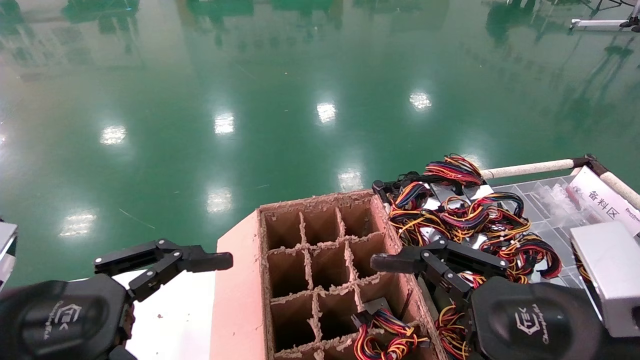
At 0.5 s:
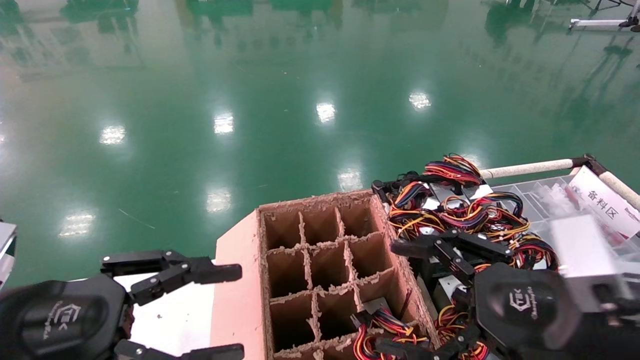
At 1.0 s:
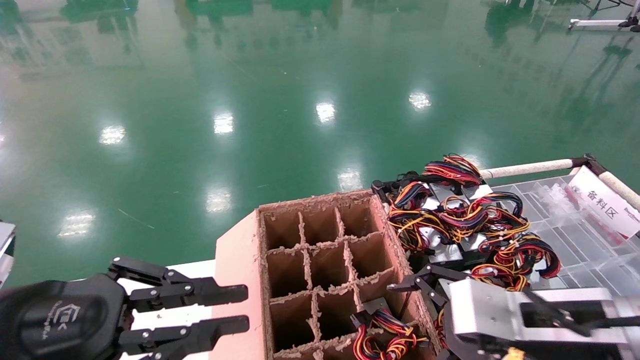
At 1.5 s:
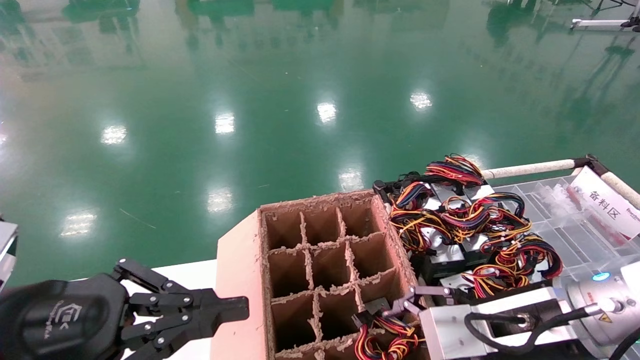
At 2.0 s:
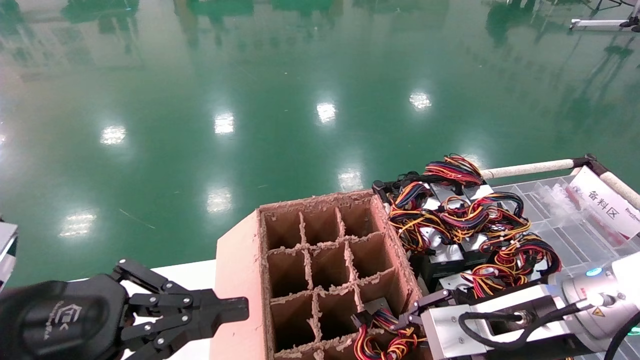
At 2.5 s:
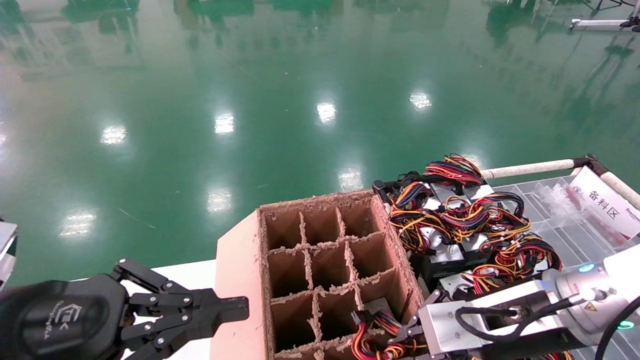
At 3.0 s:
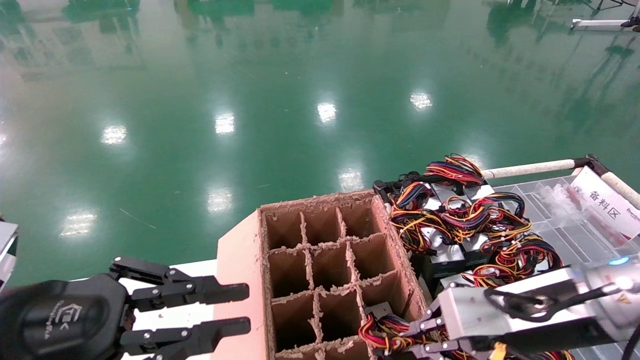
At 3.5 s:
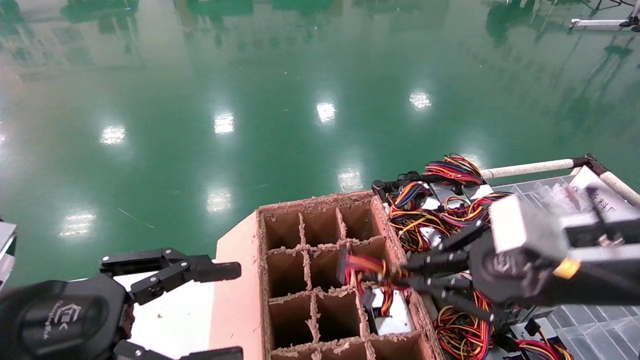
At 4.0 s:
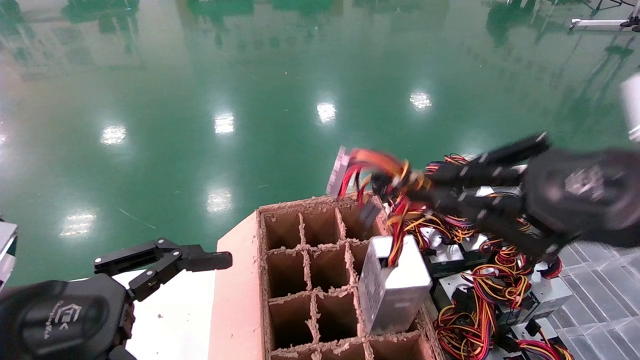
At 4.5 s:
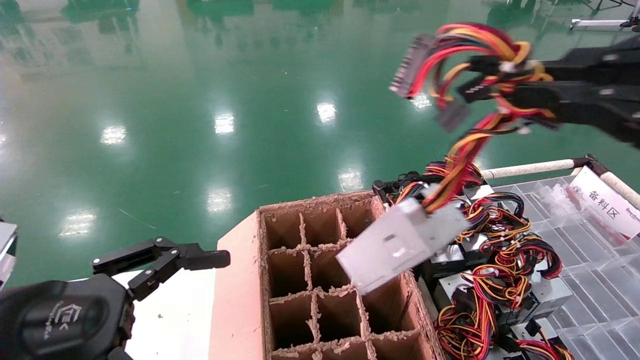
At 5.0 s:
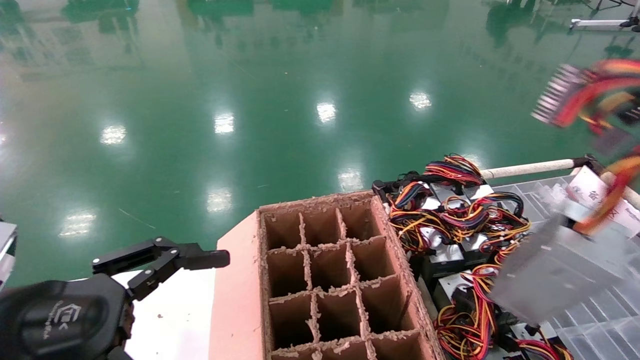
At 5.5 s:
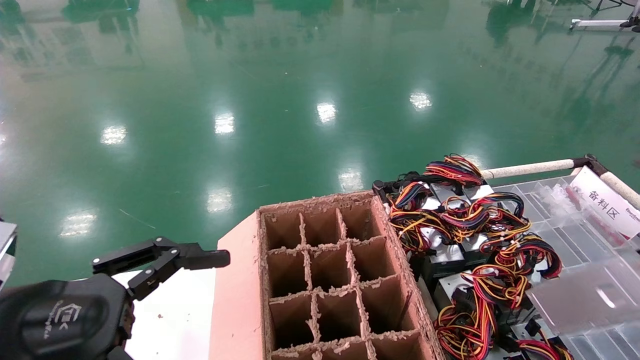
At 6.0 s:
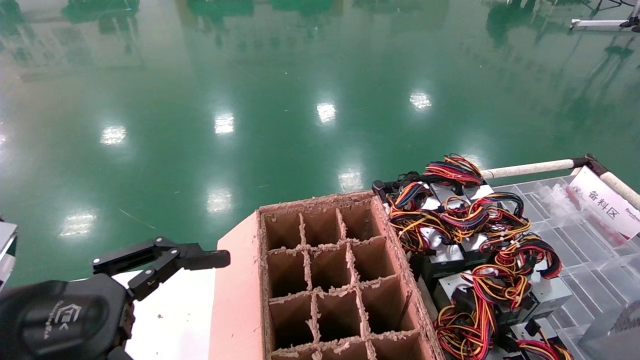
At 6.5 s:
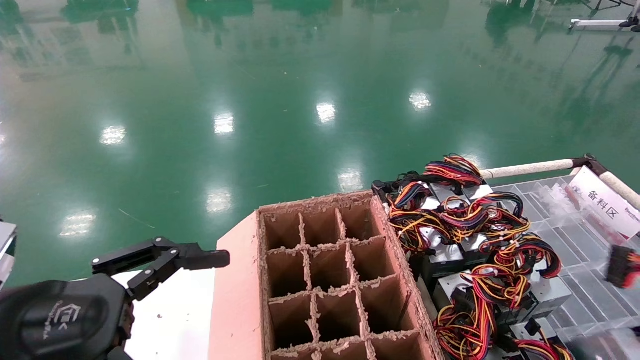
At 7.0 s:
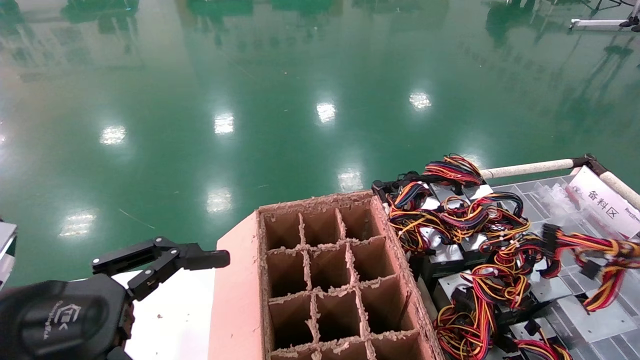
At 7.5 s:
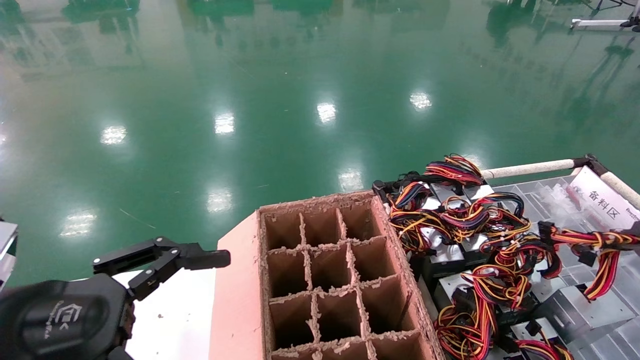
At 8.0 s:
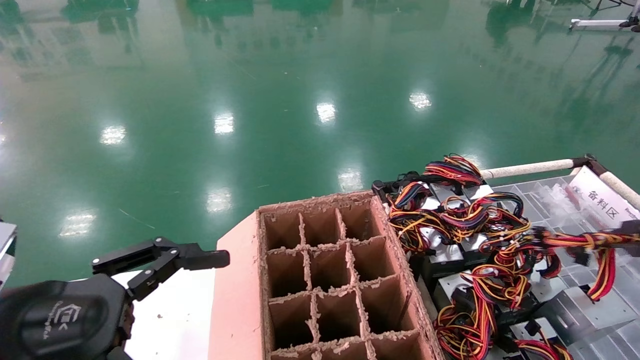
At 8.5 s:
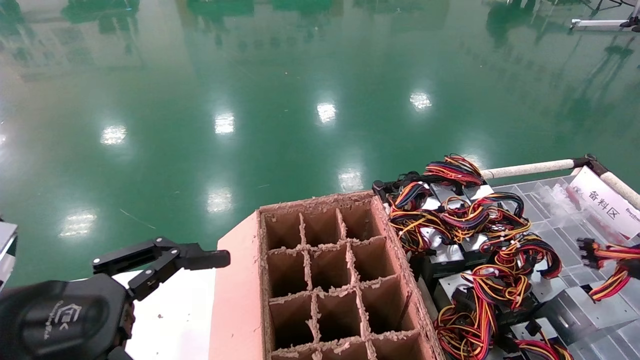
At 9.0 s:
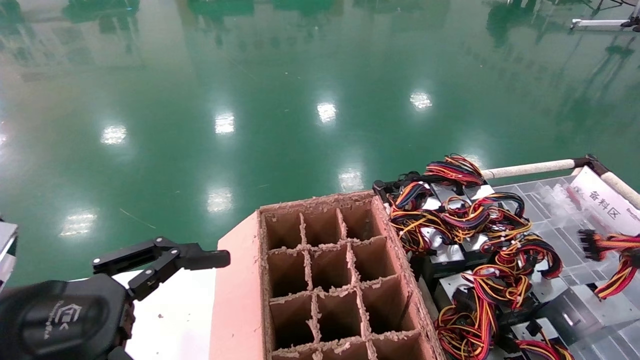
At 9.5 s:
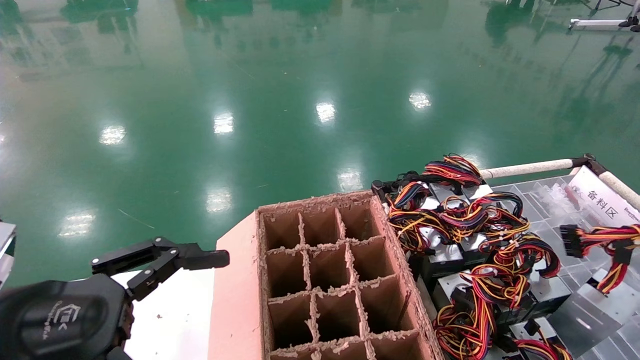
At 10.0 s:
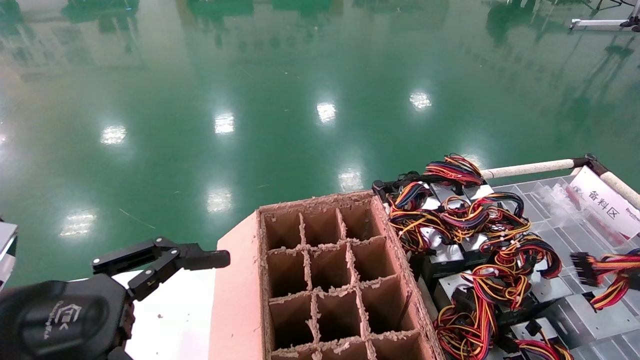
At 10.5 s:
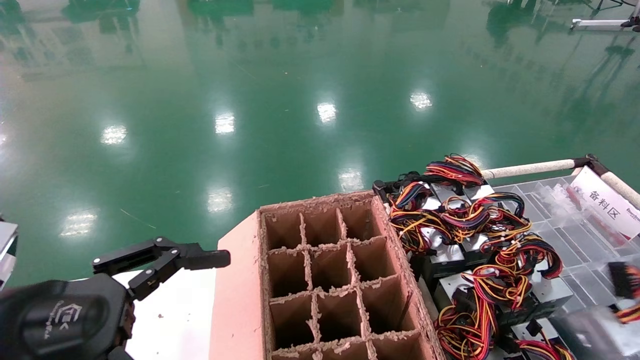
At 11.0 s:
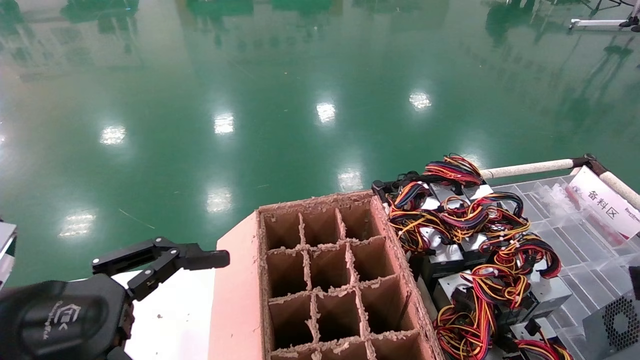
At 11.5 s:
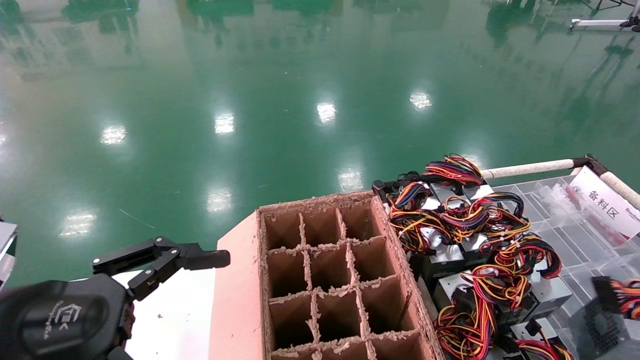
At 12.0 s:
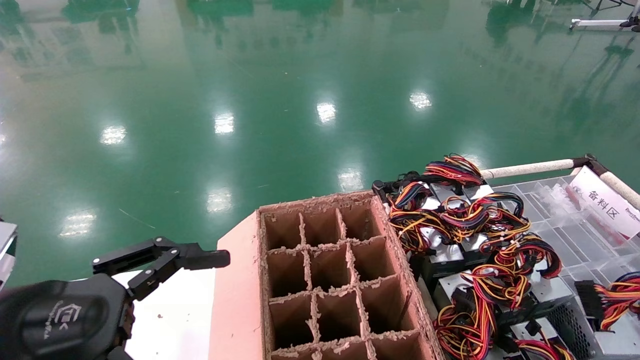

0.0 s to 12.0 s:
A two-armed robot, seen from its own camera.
Step, 1.5 to 2.5 s: Grab and lift the power supply from the large box.
0.0 to 2.0 s: The left gripper closes its fingers; the right gripper goes some 10 cm forward, and closes its fingers.
2.0 to 4.0 s: The right gripper shifts some 20 cm upward, backward and to the right, and closes up, while the left gripper opens up.
4.0 to 6.0 s: The right gripper moves to the right and backward, roughly 25 cm.
6.0 to 8.0 s: The right gripper travels forward by approximately 15 cm.
8.0 to 10.0 s: The grippers stay close to where they were, moving slightly.
10.0 to 12.0 s: The grippers make only small movements.

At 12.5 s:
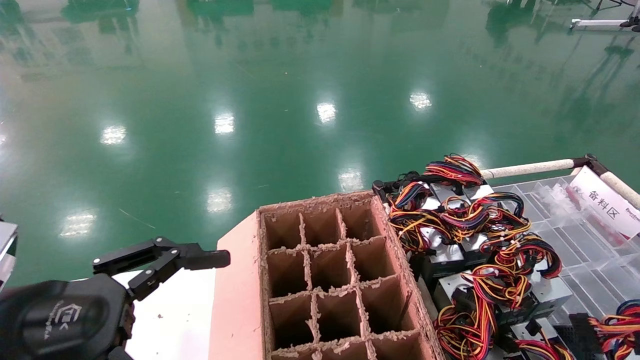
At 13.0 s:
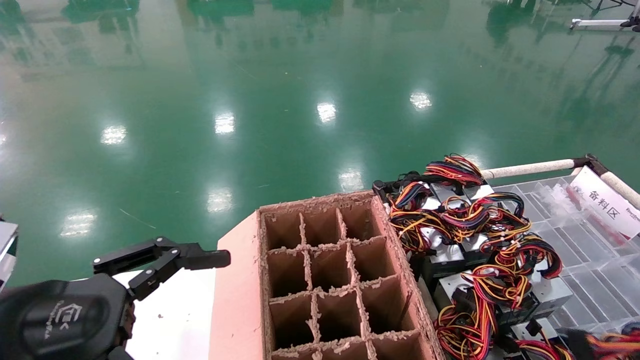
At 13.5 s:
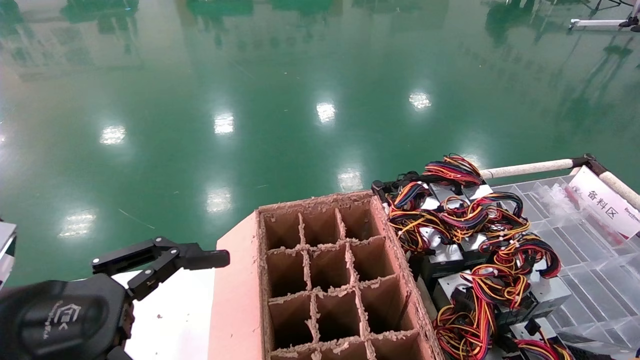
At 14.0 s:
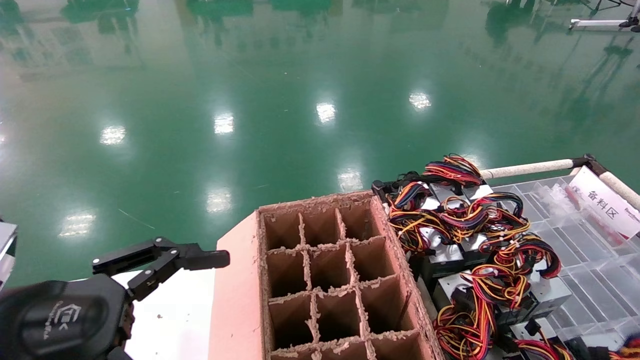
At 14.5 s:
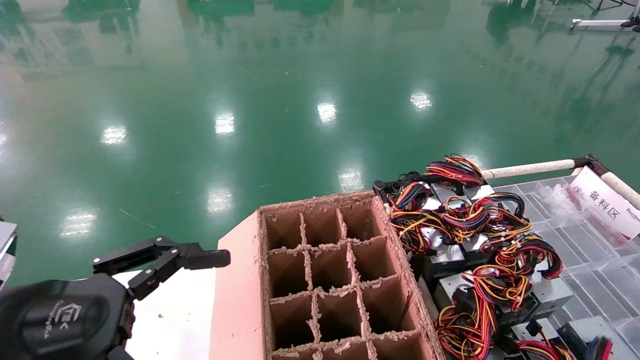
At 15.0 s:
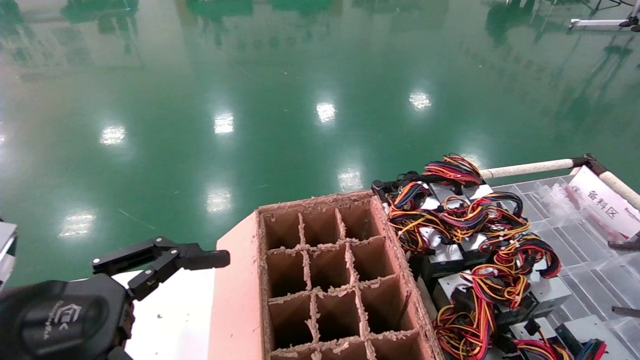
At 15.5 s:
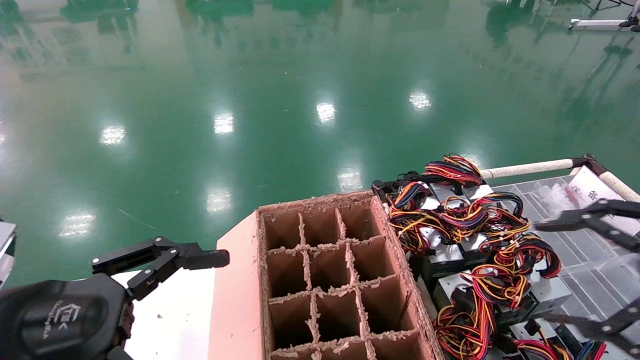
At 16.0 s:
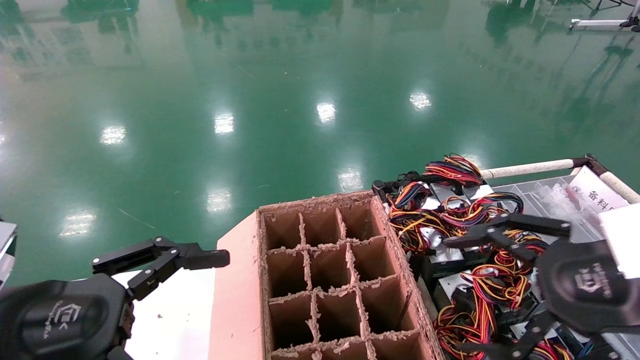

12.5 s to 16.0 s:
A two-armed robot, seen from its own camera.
12.5 to 14.5 s: The grippers stay close to where they were, moving slightly.
14.5 to 16.0 s: The right gripper goes about 15 cm to the left, and opens up.

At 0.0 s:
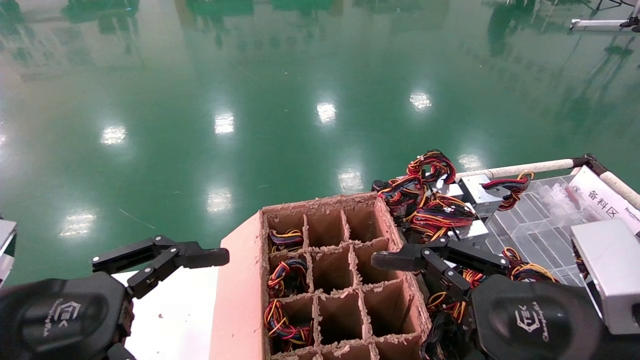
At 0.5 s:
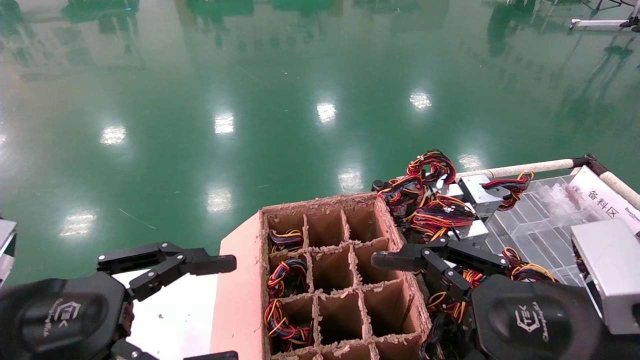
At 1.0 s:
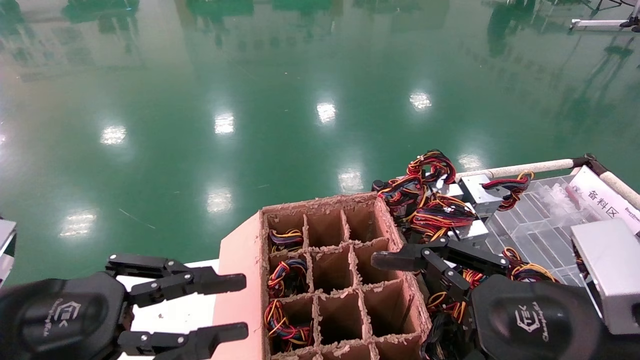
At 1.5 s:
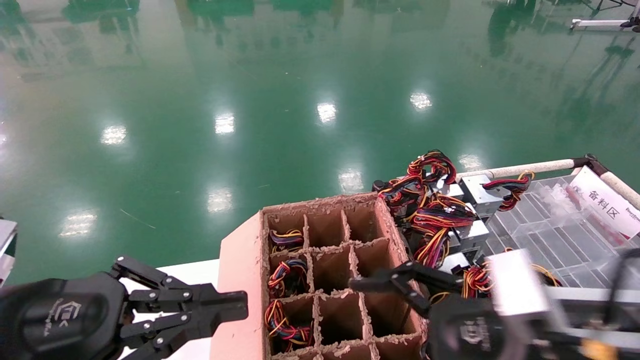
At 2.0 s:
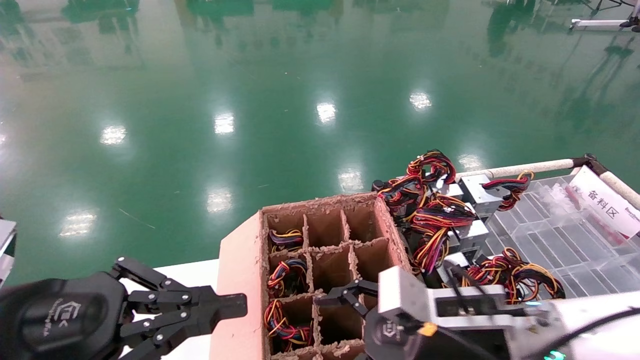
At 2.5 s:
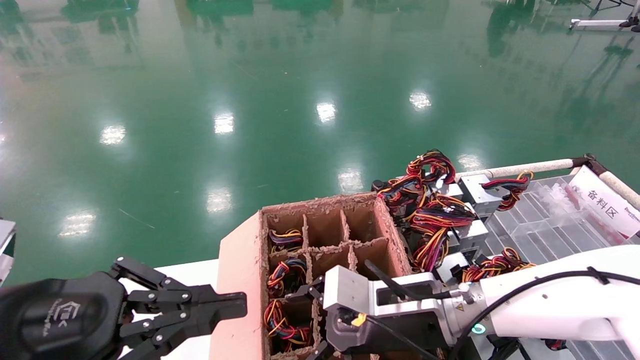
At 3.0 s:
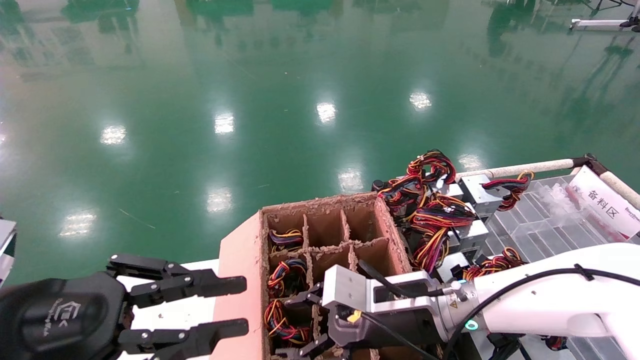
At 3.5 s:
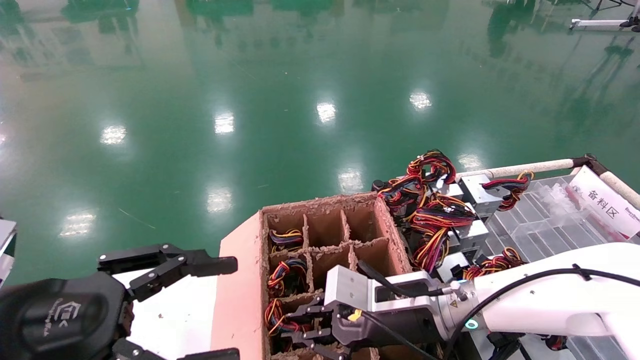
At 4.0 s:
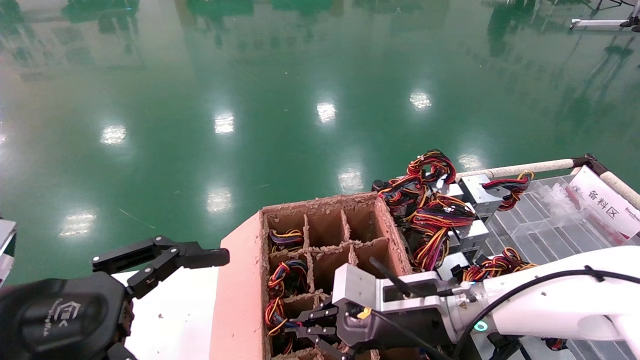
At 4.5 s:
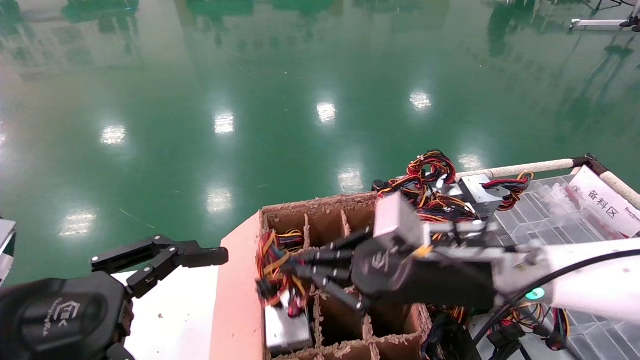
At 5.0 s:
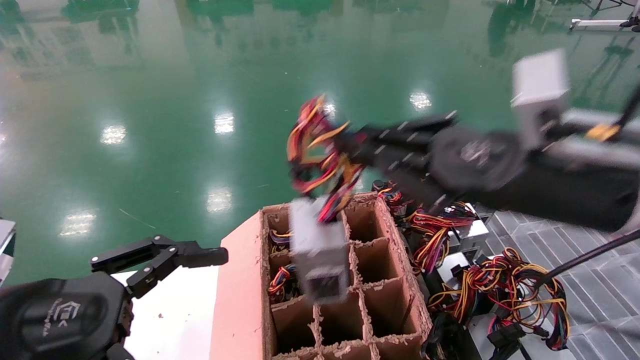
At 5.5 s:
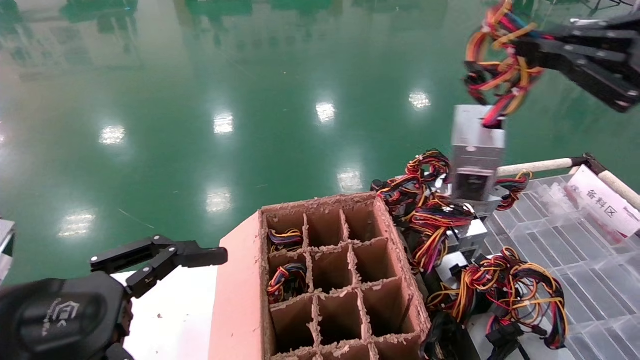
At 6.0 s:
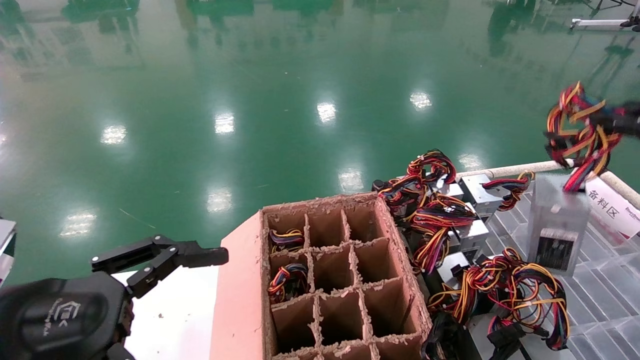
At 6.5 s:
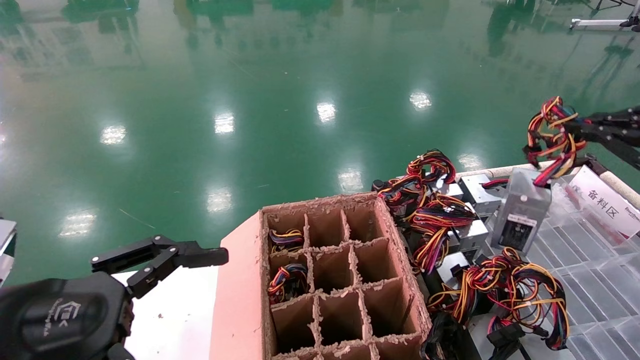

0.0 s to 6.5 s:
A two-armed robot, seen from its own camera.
Step, 2.0 to 4.0 s: Grab and lift the power supply from the large box.
0.0 to 2.0 s: The left gripper closes its fingers; the right gripper travels forward, to the left and downward by some 15 cm.
2.0 to 4.5 s: The left gripper opens up. The right gripper heads upward, covering roughly 5 cm, and closes.
4.5 to 6.5 s: The right gripper moves to the right and upward, some 35 cm.
